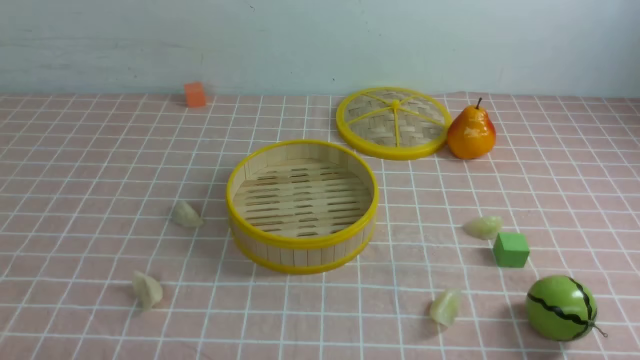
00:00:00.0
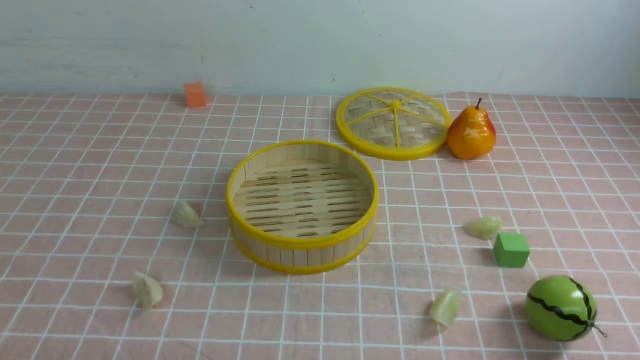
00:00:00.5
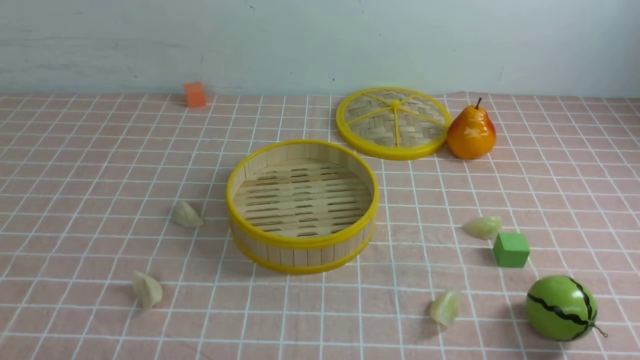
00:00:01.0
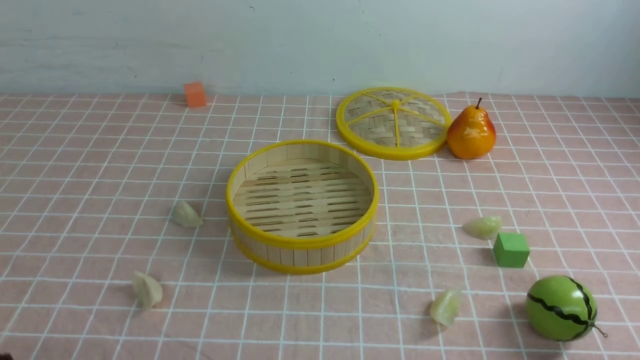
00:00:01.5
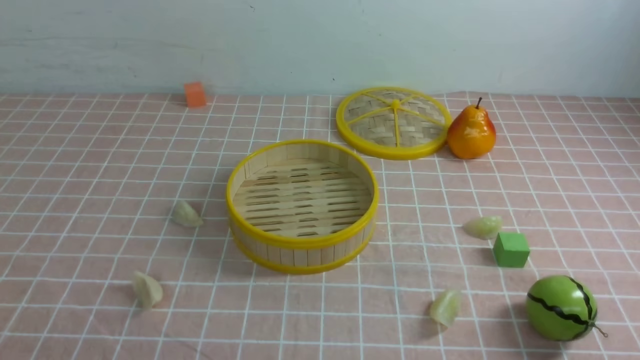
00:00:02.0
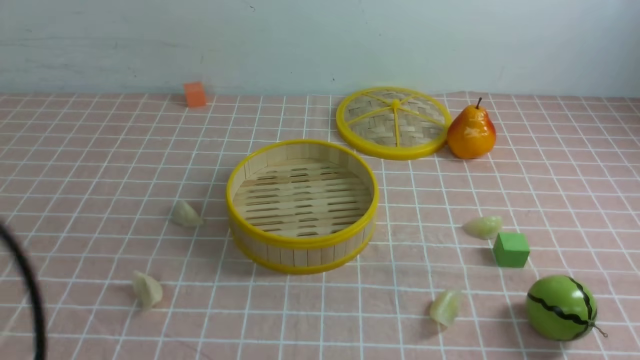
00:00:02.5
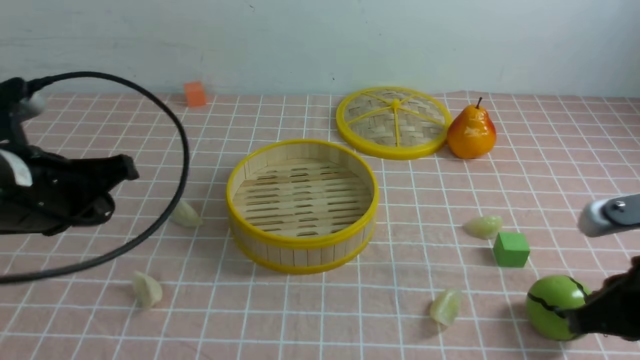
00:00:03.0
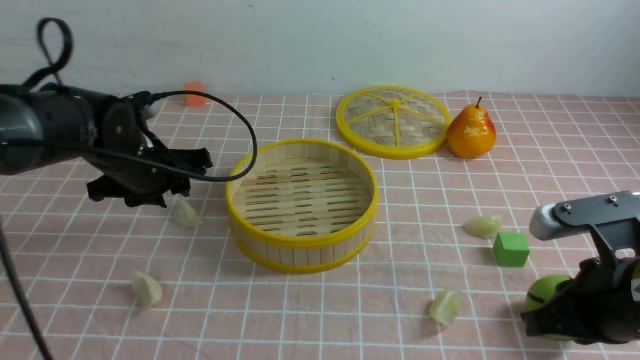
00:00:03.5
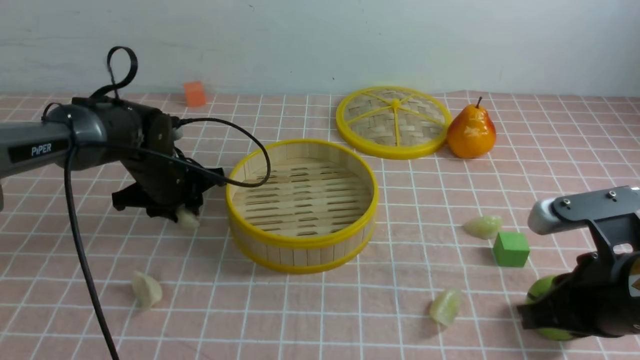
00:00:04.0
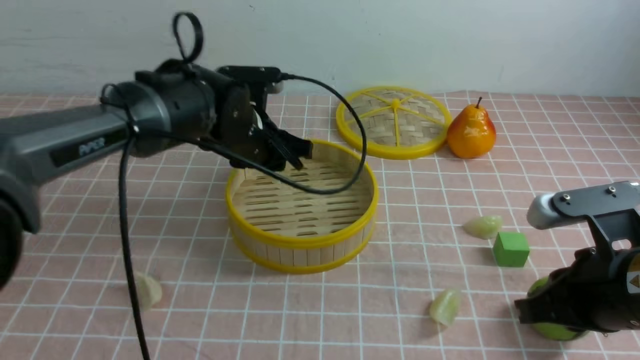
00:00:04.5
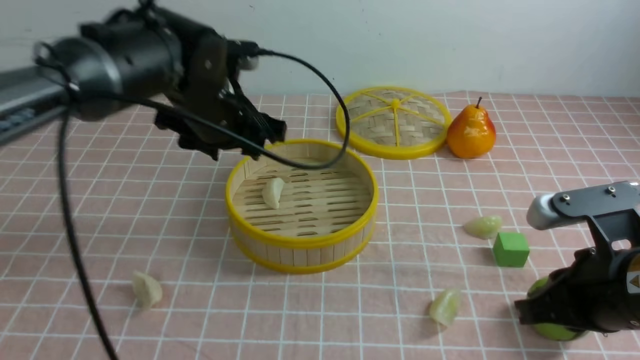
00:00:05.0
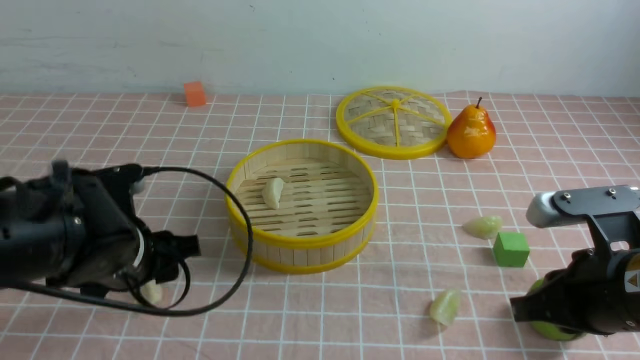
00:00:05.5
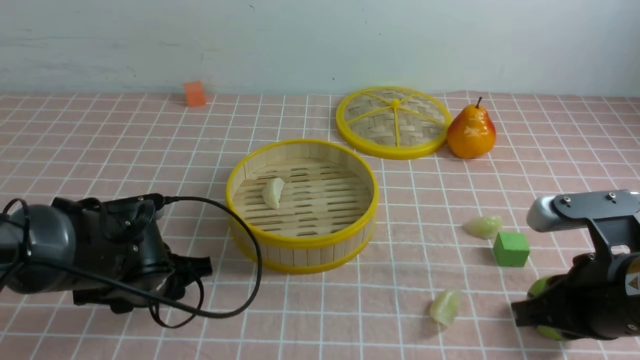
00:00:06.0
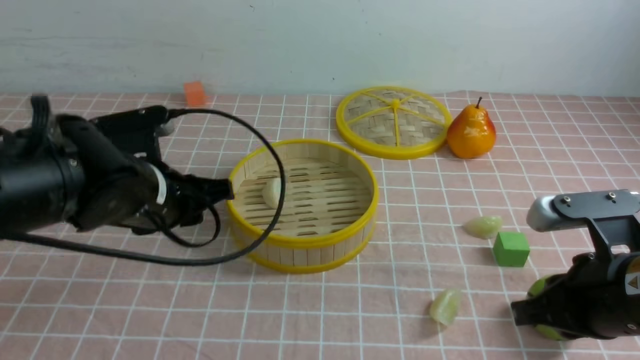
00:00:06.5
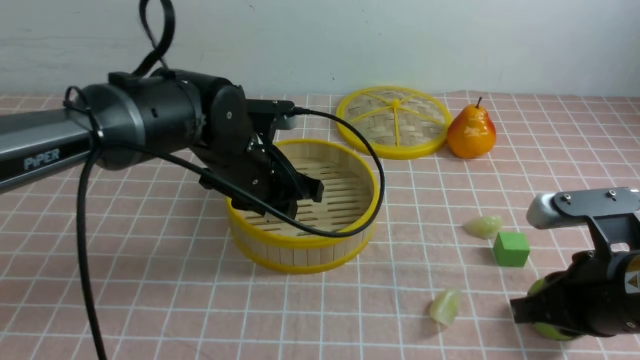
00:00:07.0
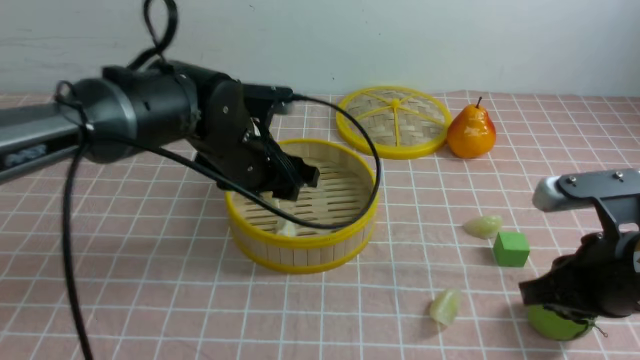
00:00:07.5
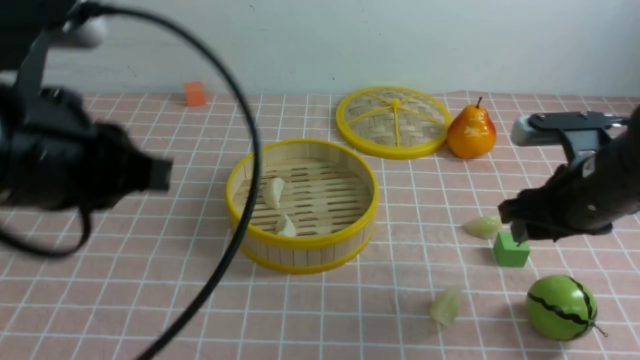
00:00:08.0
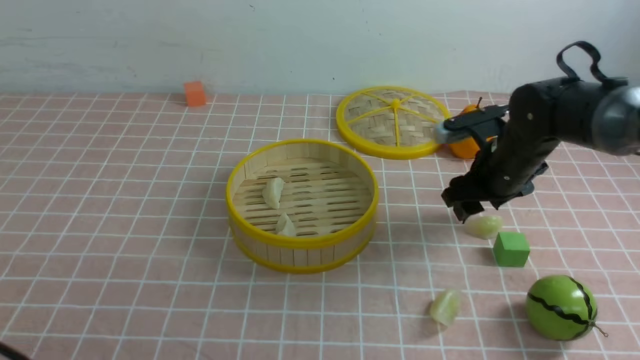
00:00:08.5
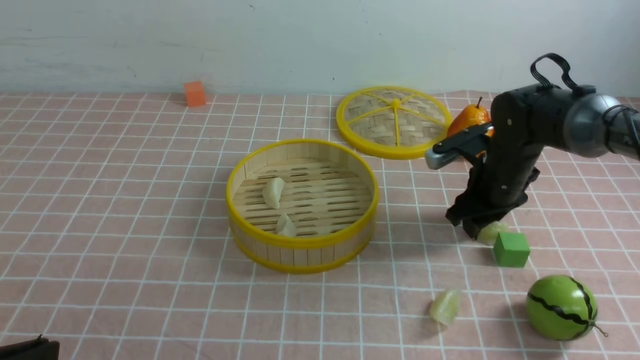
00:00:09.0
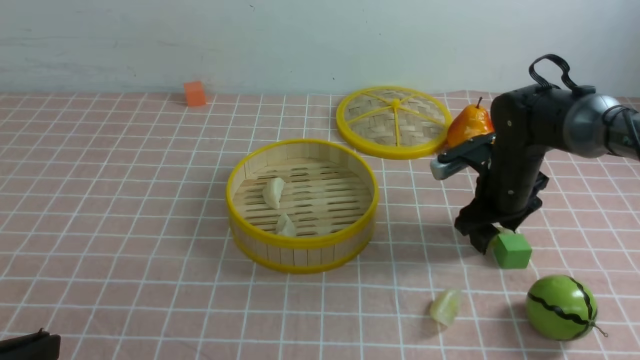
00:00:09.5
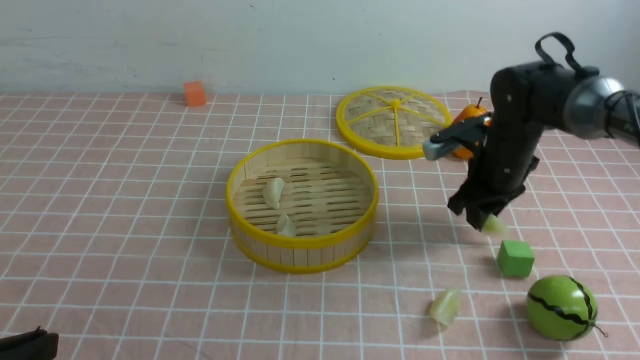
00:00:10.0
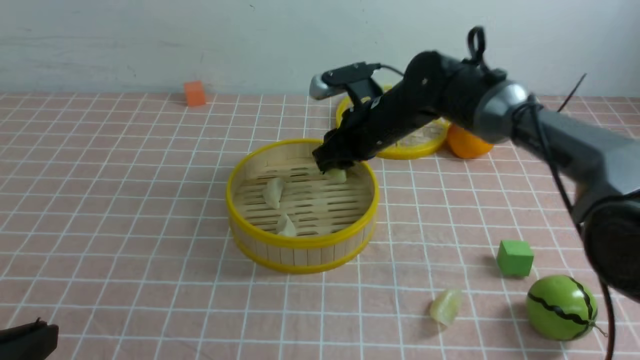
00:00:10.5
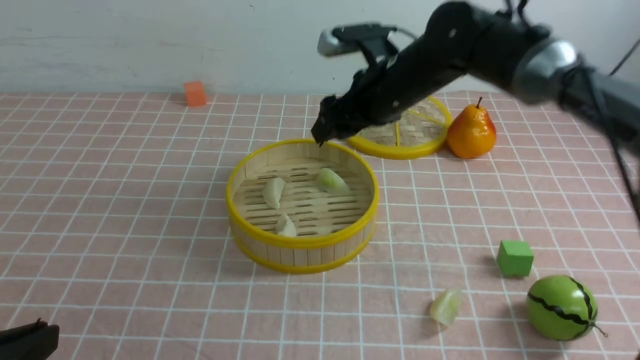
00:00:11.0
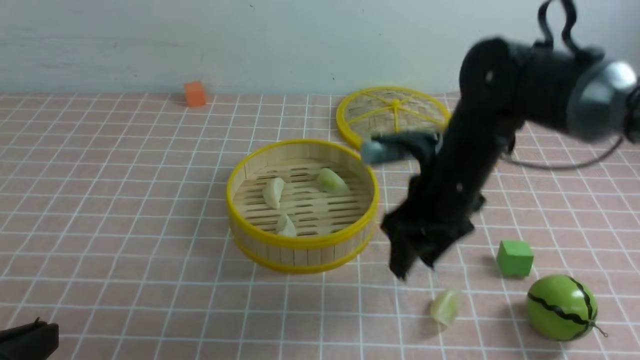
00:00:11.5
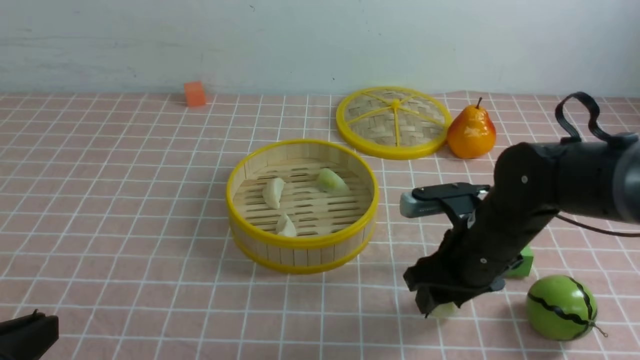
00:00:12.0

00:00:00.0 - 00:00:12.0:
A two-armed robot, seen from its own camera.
Task of the whole recording: put the dumplings into the steamer on the table with the pink tablecloth.
Step, 00:00:00.0 - 00:00:04.0: use the left arm to grab a dumpling.
Step, 00:00:05.0 - 00:00:06.0: use the left arm to grab a dumpling.
Step, 00:00:06.5 - 00:00:07.0: use the left arm to put the dumpling into the steamer.
Step, 00:00:07.5 - 00:00:09.5: use the right arm to grab a dumpling.
Step, 00:00:10.0 - 00:00:10.5: use the right arm to put the dumpling into the steamer.
00:00:02.0 - 00:00:04.0: The left gripper heads forward, covering some 40 cm, and opens its fingers, while the right gripper goes about 15 cm forward and to the left.
00:00:04.0 - 00:00:06.0: The left gripper is displaced backward by roughly 15 cm.
00:00:06.0 - 00:00:08.0: The right gripper goes roughly 10 cm forward, and opens up. The left gripper heads upward and backward, covering approximately 25 cm, and closes up.
00:00:08.0 - 00:00:10.0: The right gripper is displaced forward by roughly 15 cm. The left gripper goes roughly 15 cm downward, backward and to the left.
00:00:10.0 - 00:00:12.0: The right gripper moves backward, approximately 15 cm.

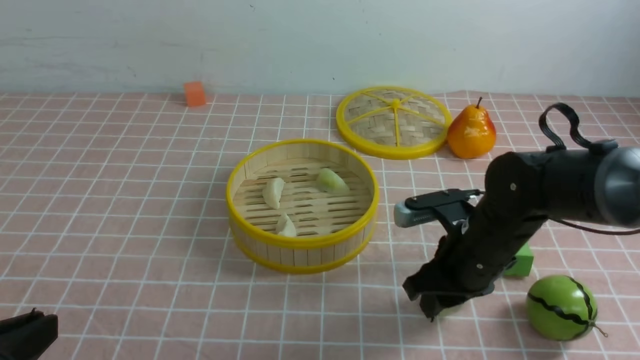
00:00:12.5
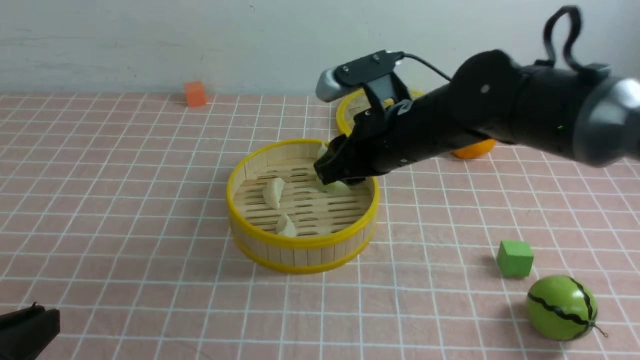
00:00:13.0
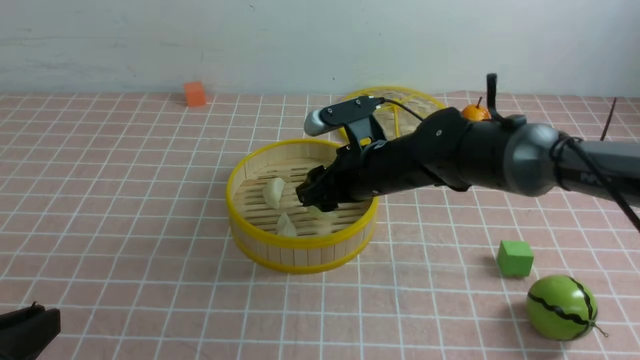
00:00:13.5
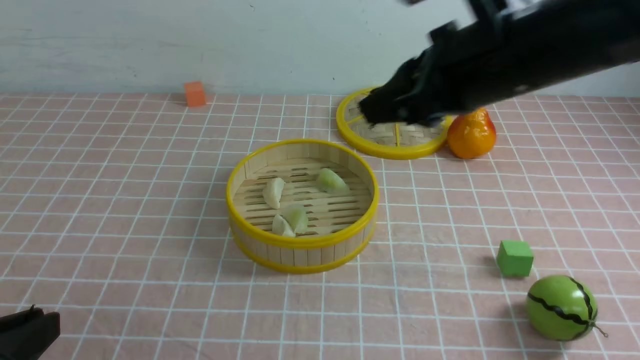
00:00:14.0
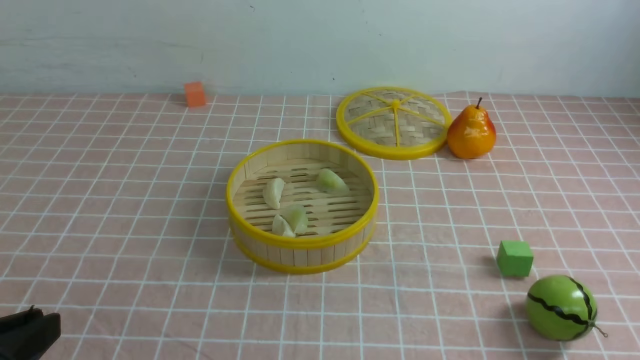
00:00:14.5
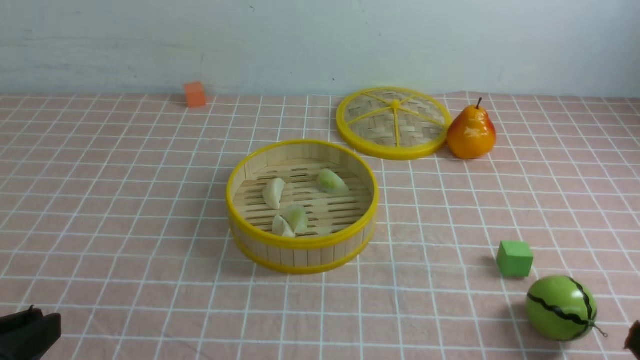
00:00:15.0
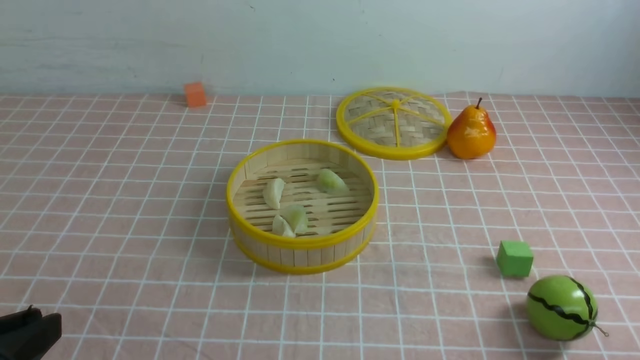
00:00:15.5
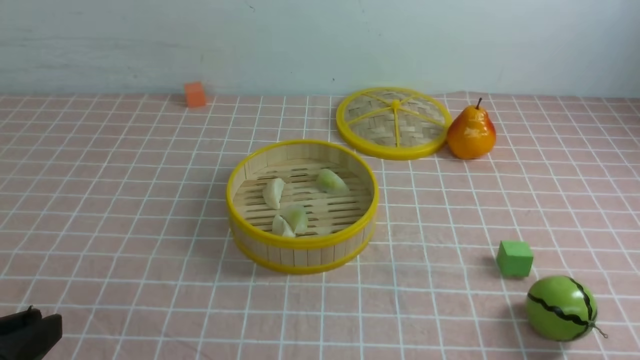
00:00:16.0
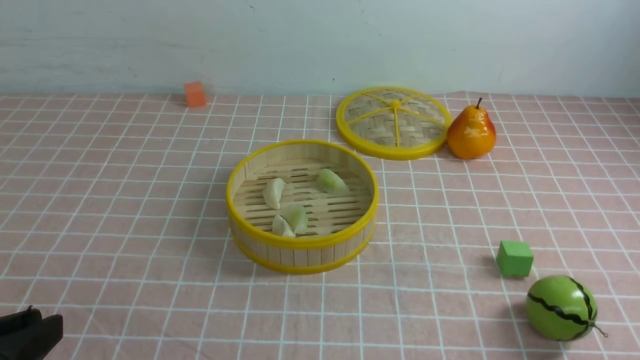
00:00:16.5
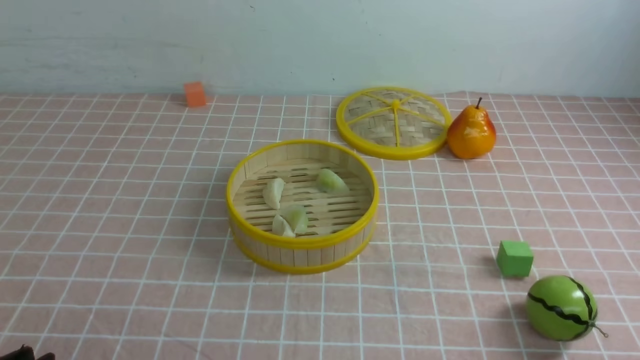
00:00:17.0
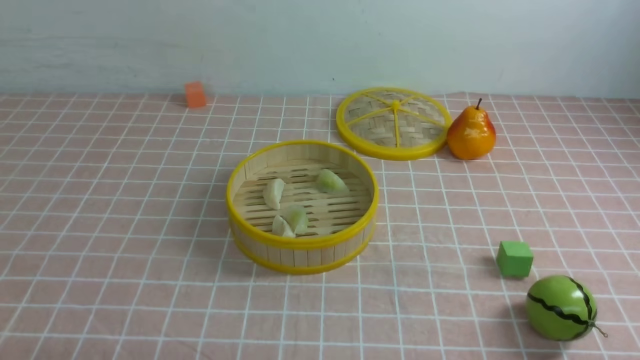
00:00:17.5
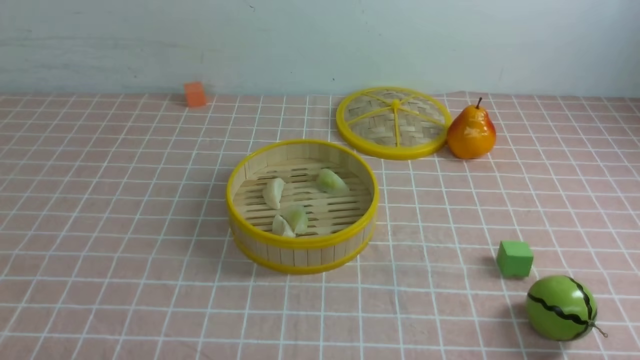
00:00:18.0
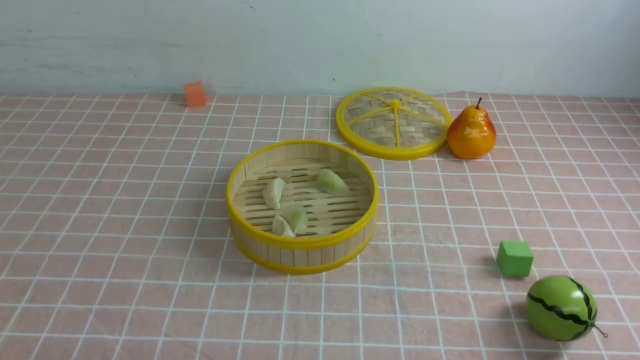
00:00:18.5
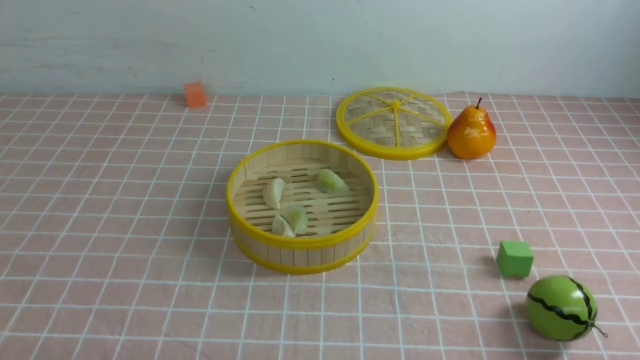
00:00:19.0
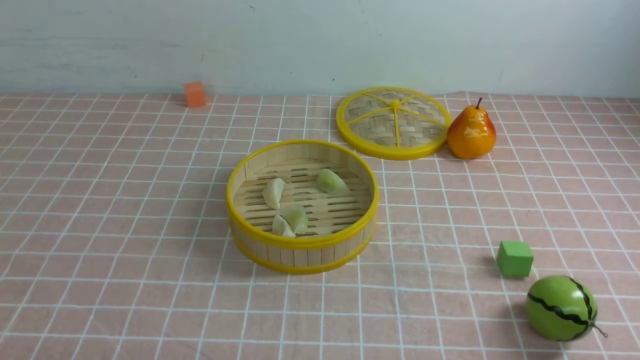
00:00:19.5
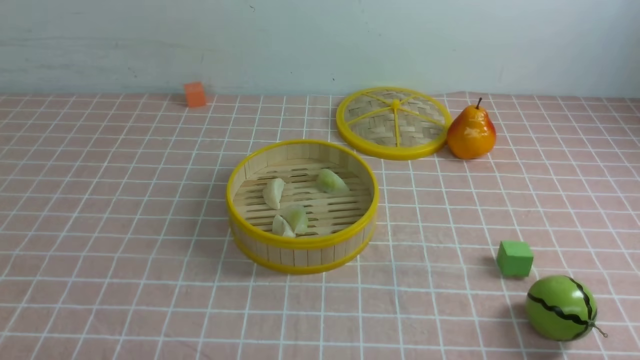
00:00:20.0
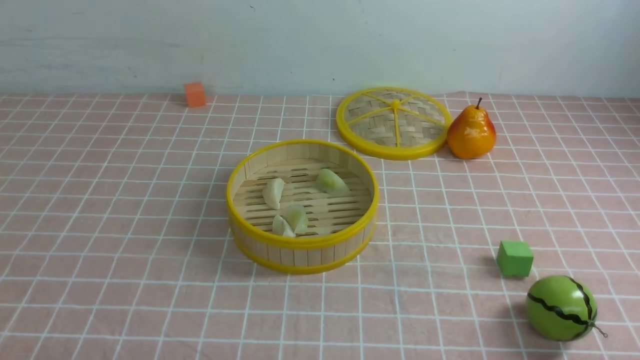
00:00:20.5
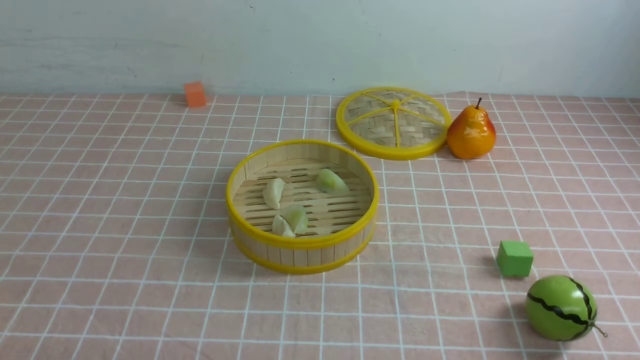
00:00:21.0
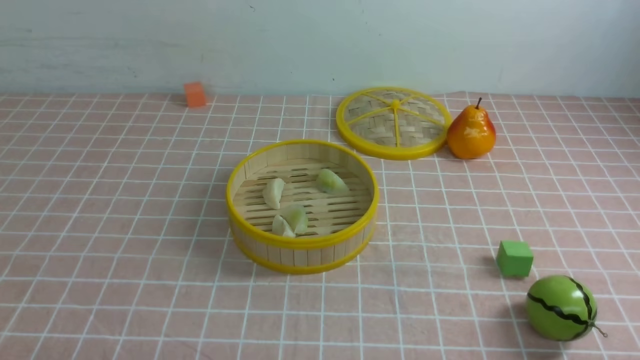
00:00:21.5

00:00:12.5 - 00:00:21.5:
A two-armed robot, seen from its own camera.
Task of the whole recording: put the dumplings into the steamer on the table with the pink tablecloth.
Step, 00:00:13.0 - 00:00:13.5: use the right arm to put the dumpling into the steamer.
00:00:12.5 - 00:00:14.5: The right gripper heads backward, upward and to the right, covering roughly 35 cm, and closes.
00:00:19.5 - 00:00:21.5: Neither gripper changes place.
